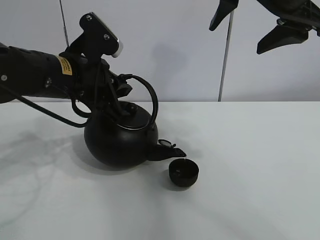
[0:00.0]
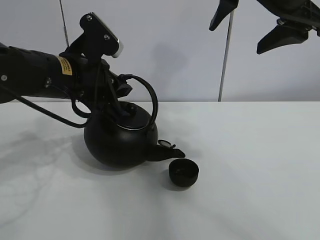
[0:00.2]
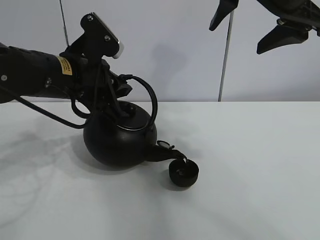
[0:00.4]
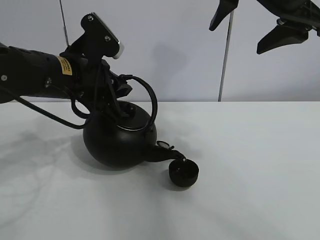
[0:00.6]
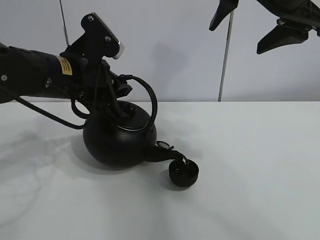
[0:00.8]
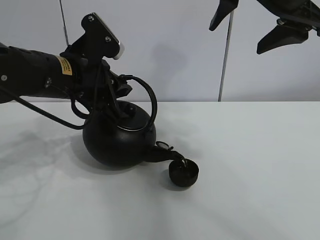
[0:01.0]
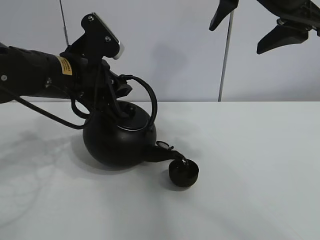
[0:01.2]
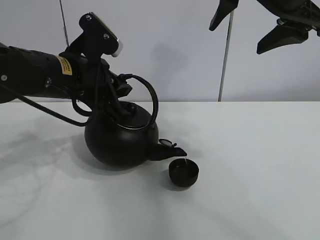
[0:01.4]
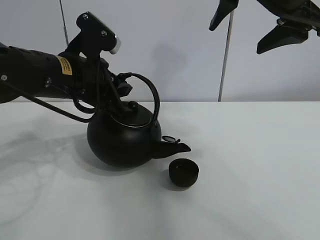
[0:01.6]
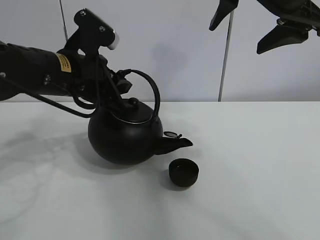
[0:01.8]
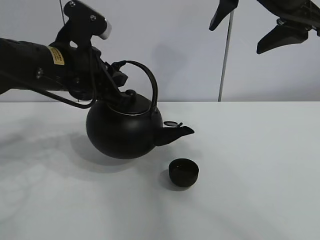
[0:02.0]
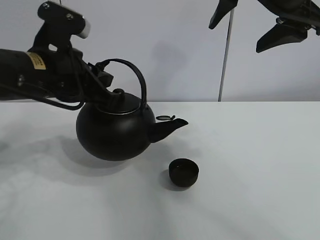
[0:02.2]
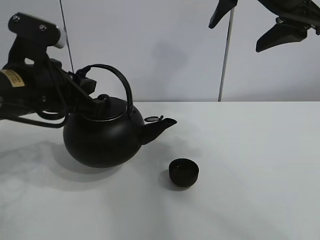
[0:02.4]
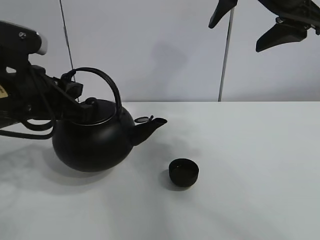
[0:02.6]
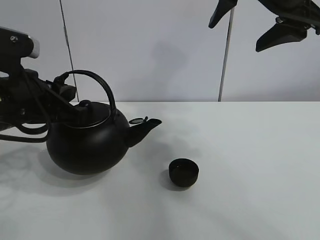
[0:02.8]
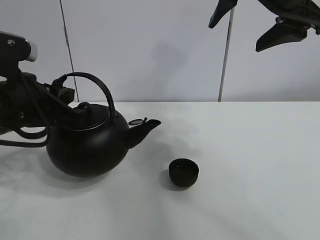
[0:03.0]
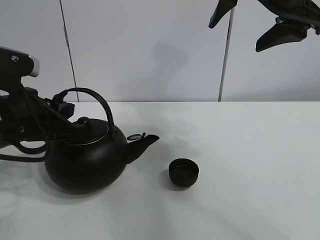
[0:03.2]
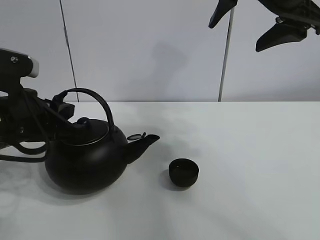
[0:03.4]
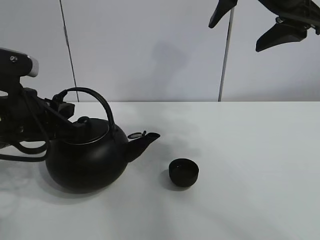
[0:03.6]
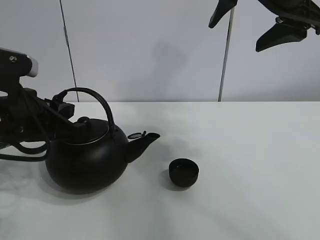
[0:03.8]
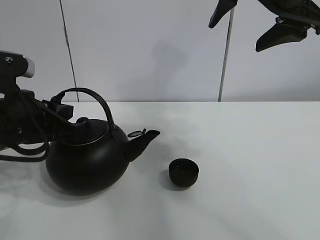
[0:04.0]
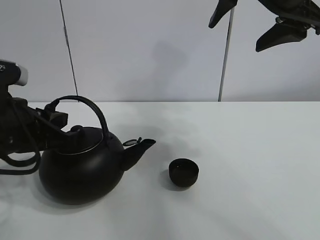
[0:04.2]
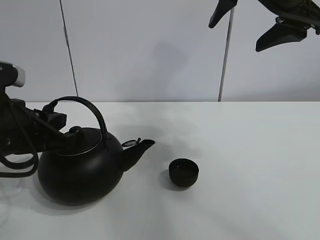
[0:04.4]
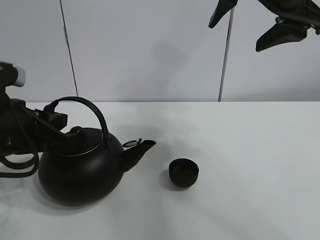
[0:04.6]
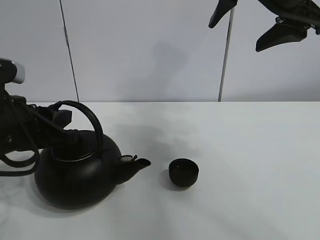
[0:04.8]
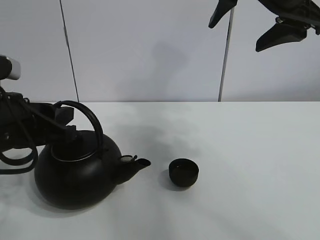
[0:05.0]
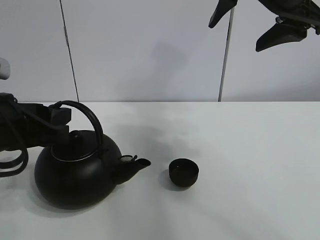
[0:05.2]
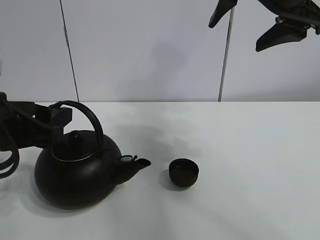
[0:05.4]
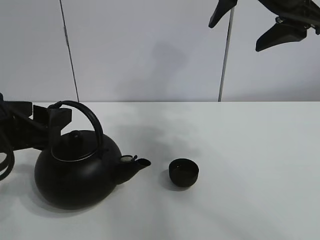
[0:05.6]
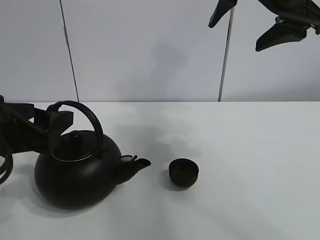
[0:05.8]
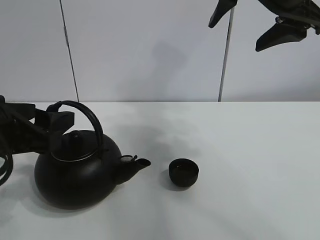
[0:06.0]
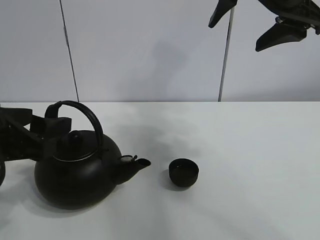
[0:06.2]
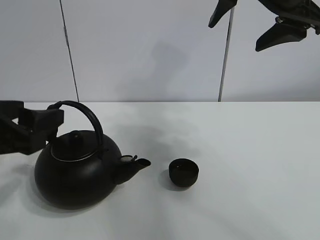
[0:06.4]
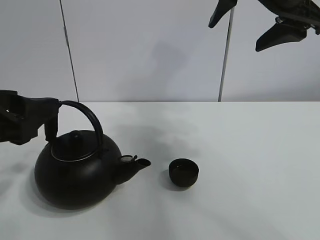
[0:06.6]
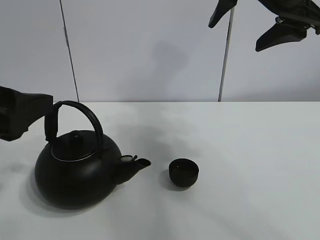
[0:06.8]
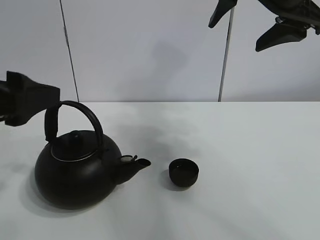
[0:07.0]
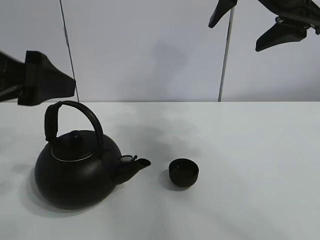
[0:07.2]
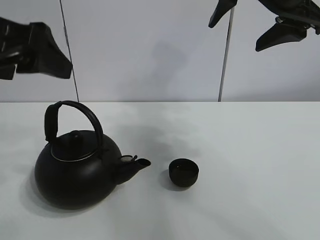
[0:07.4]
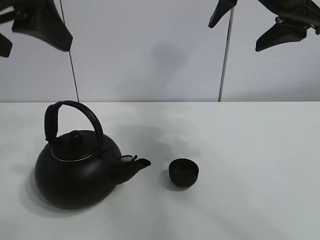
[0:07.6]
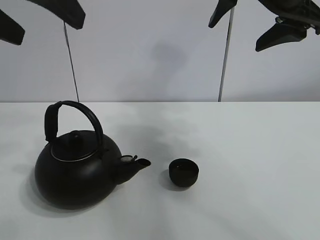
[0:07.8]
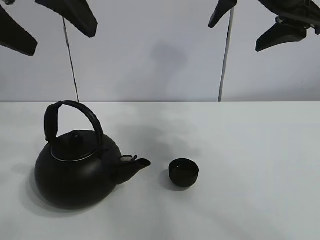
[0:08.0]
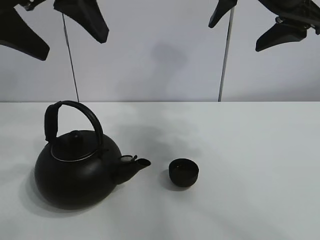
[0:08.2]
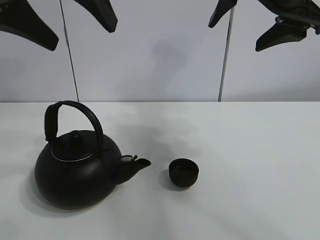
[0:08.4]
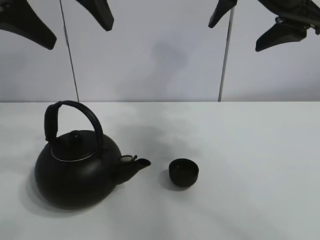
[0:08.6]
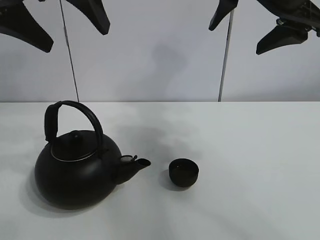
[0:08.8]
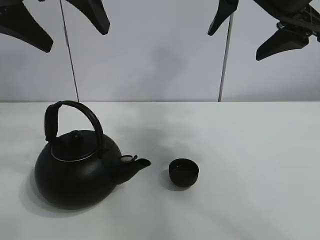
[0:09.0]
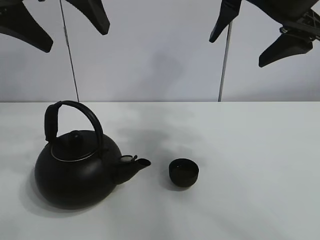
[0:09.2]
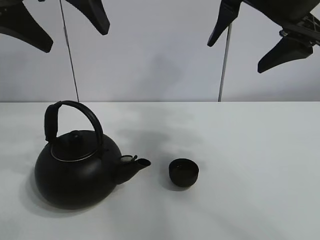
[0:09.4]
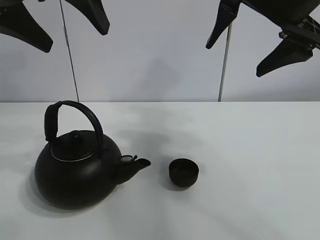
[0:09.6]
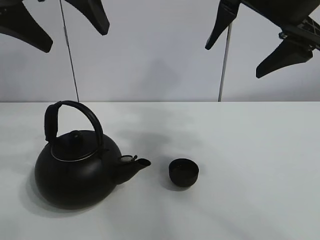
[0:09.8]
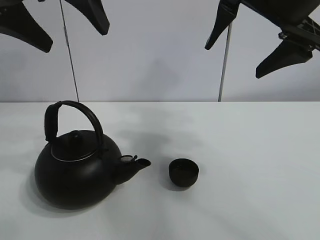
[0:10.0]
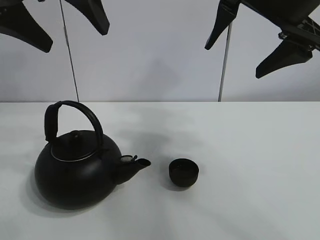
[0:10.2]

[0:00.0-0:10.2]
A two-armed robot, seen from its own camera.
Task of the whole recording: pour tea into the teacup.
0:00.0 to 0:01.4: Both grippers stay put.
0:01.4 to 0:03.0: The left gripper shifts approximately 10 cm backward and to the left.
0:03.0 to 0:04.4: The grippers move only a little.
0:04.4 to 0:05.8: The left gripper opens.
0:05.8 to 0:07.2: The left gripper moves upward, about 10 cm.
0:07.2 to 0:08.8: The left gripper shifts roughly 10 cm upward and forward.
0:08.8 to 0:10.2: The grippers stay close to where they were, moving slightly.

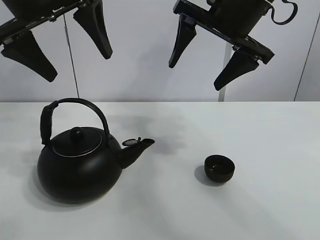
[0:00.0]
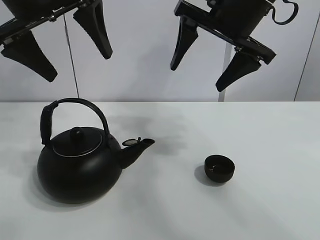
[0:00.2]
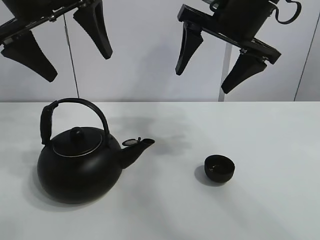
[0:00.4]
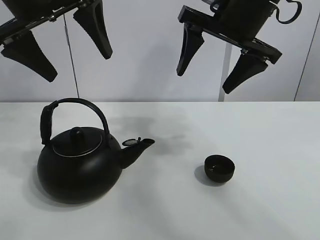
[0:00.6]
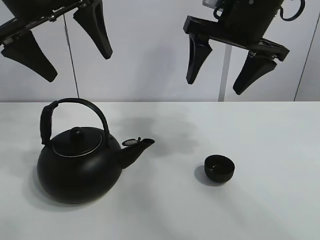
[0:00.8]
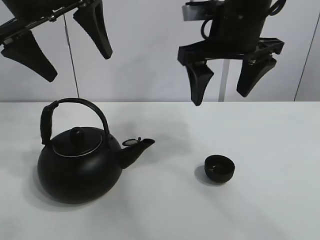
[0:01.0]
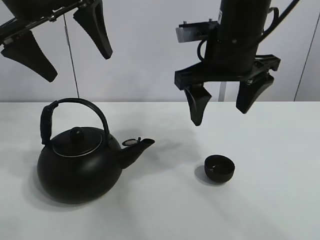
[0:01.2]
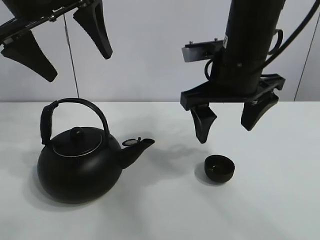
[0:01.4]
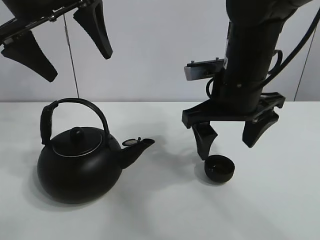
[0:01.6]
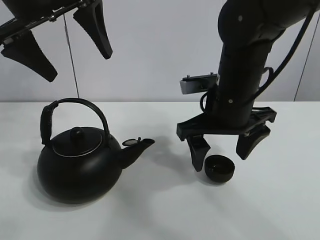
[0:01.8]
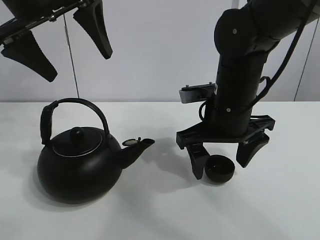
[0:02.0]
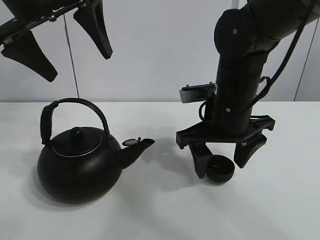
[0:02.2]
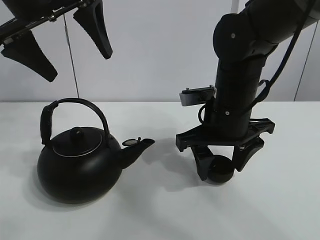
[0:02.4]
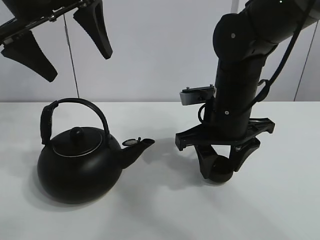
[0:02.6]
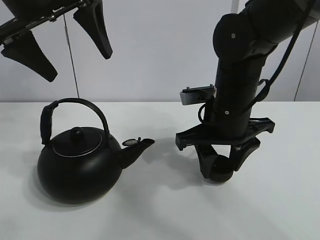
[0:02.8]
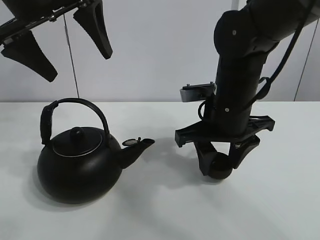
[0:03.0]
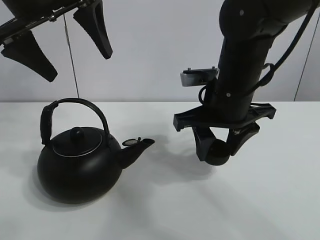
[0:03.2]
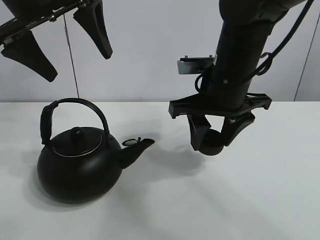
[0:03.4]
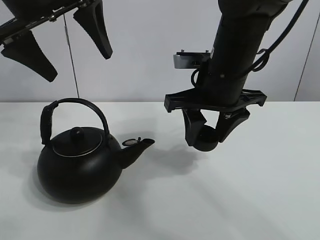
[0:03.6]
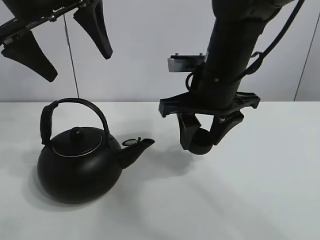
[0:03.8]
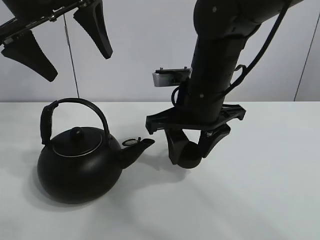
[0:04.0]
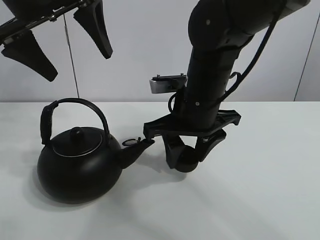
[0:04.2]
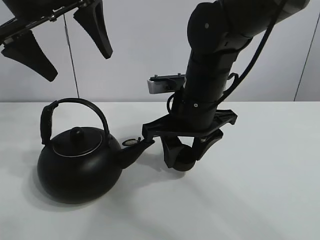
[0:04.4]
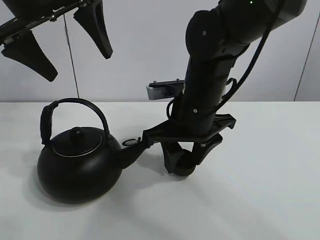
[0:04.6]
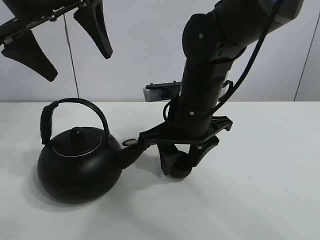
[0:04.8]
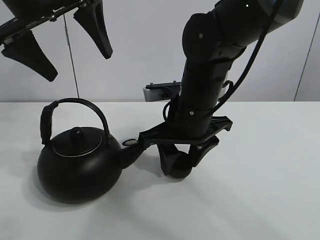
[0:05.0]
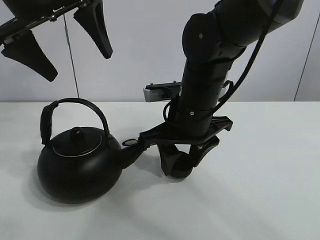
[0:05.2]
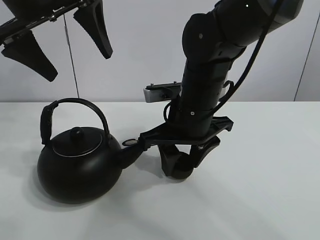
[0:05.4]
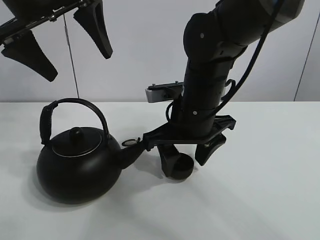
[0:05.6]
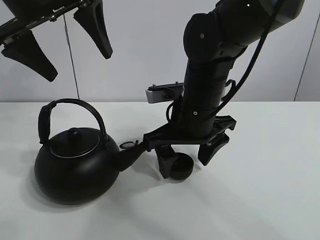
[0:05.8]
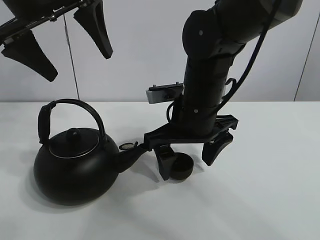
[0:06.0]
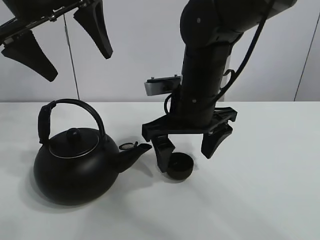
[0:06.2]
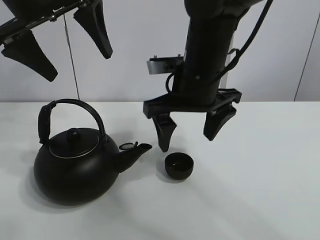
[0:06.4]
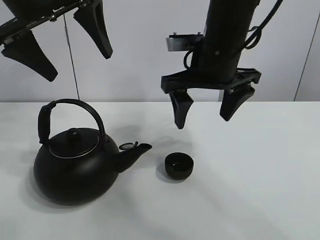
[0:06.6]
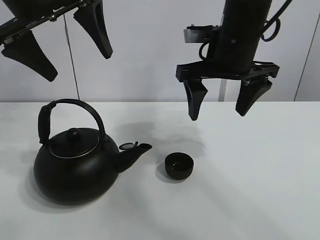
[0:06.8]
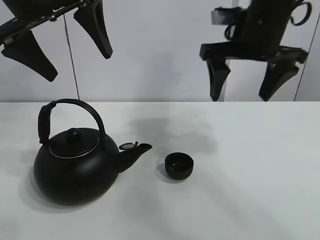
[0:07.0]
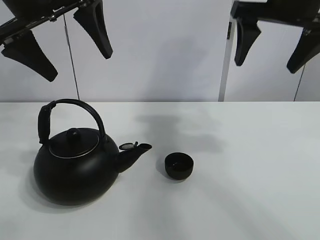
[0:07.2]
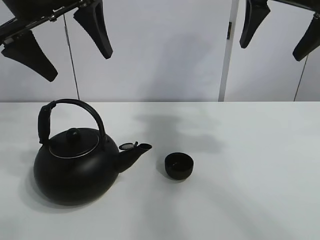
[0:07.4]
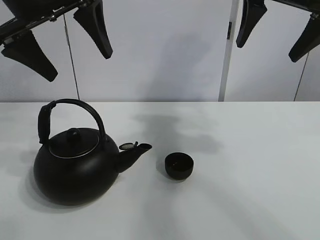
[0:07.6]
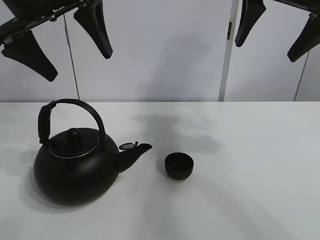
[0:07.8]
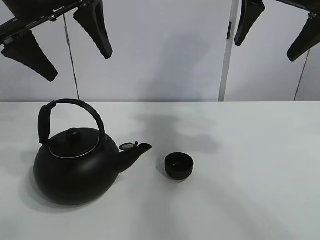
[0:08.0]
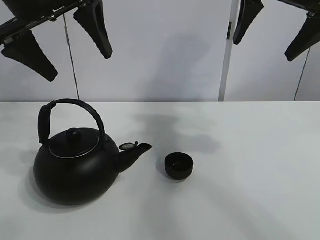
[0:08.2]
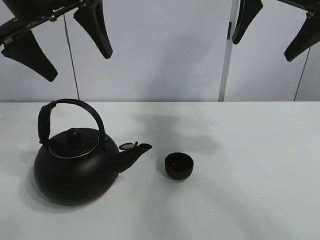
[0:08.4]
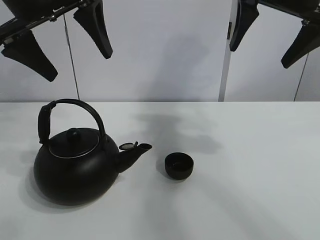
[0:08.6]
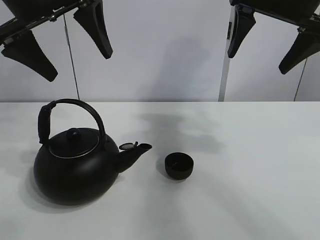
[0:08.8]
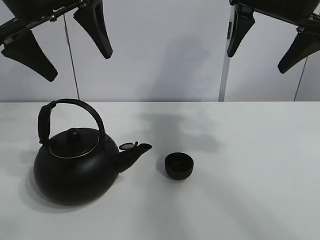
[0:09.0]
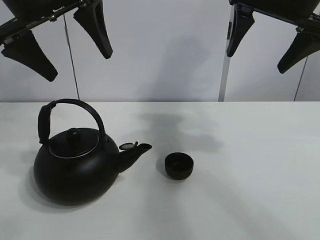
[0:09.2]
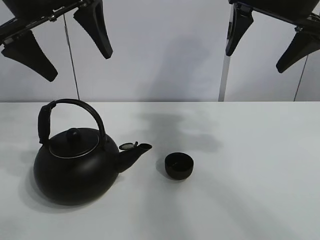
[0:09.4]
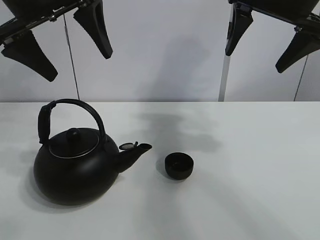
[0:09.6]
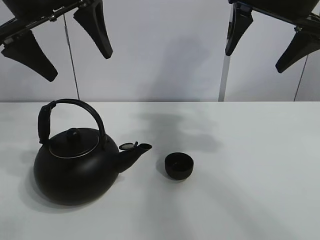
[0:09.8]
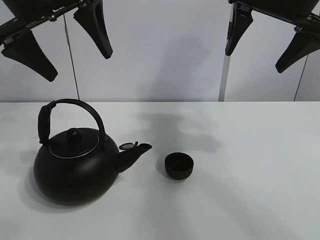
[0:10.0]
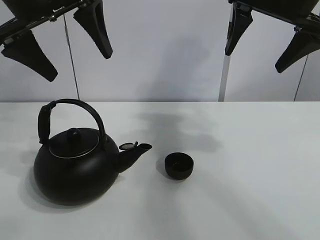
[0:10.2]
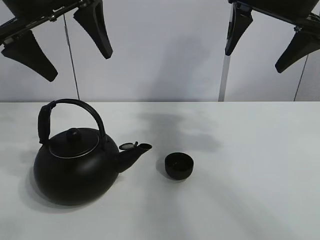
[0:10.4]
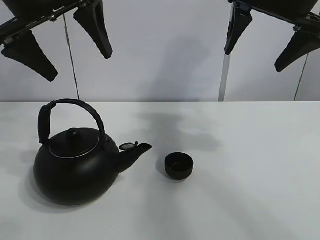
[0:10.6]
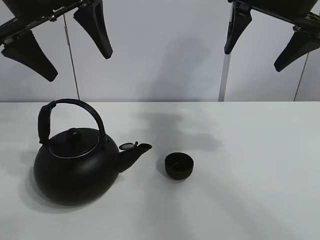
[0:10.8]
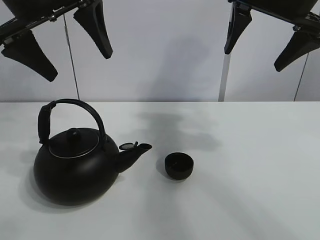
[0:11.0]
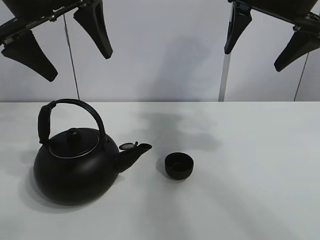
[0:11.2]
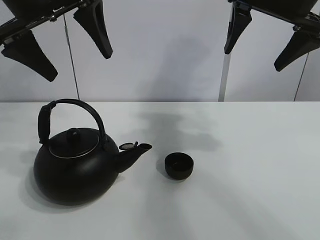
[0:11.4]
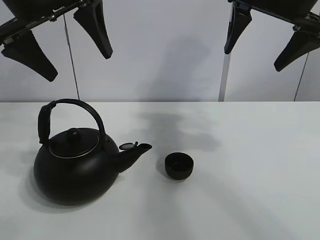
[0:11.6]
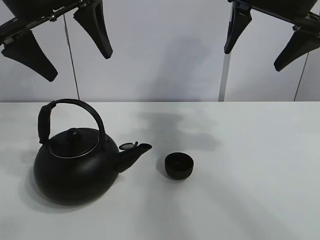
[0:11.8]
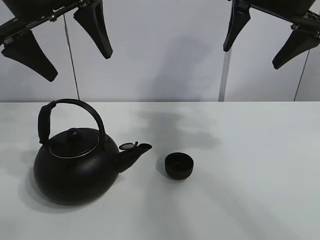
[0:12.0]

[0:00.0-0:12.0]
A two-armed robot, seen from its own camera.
Task of the whole recording: pour tea into the teacup.
Step, 0:00.0 to 0:02.8: Pick up the teacup with the right gripper.
Step, 0:03.0 to 0:05.8: Place the teacup in the center of view with the right gripper.
0:01.6 to 0:03.0: The right gripper closes.
0:03.0 to 0:04.4: There are only small adjustments of the grippers.
0:04.4 to 0:06.0: The right gripper opens its fingers.
0:06.0 to 0:07.6: The right gripper is displaced upward and to the right by some 25 cm.
0:07.6 to 0:09.0: The grippers make only small movements.
0:09.0 to 0:12.0: Both grippers stay about where they are.
